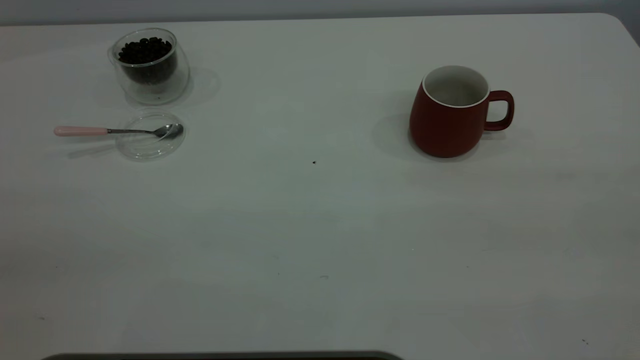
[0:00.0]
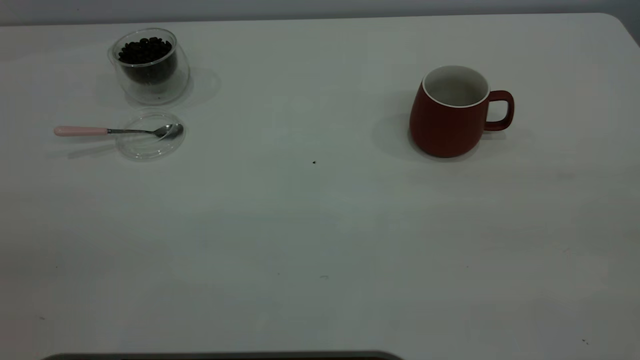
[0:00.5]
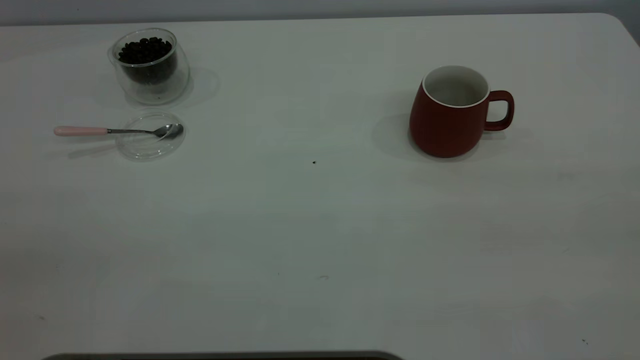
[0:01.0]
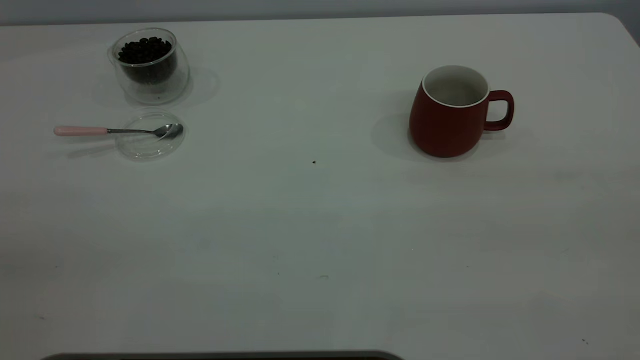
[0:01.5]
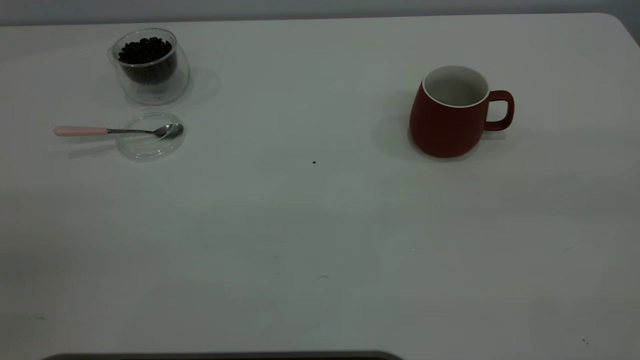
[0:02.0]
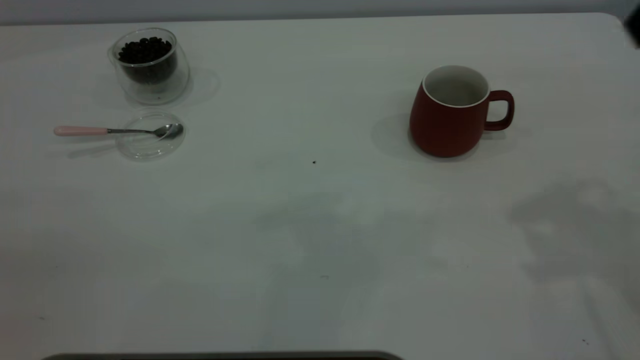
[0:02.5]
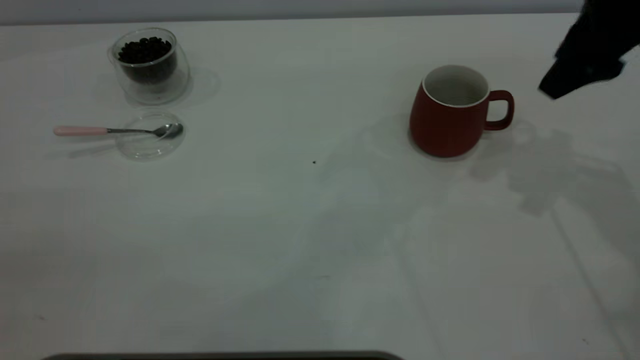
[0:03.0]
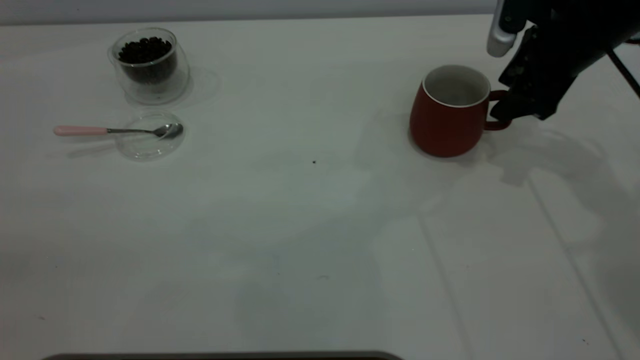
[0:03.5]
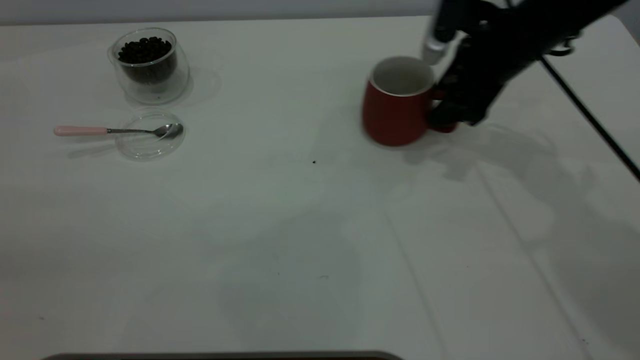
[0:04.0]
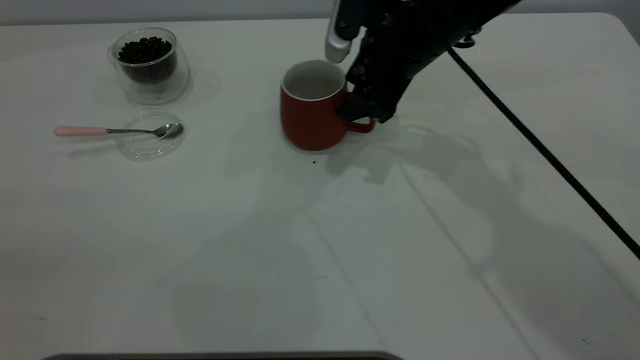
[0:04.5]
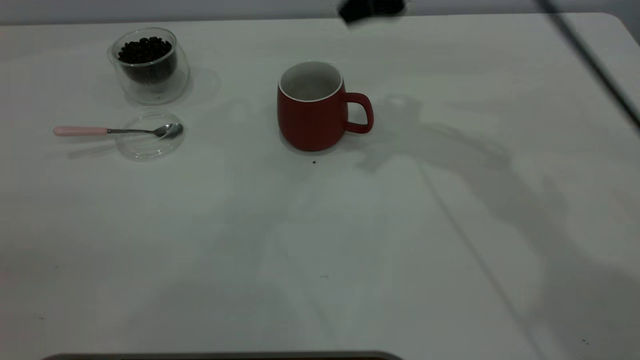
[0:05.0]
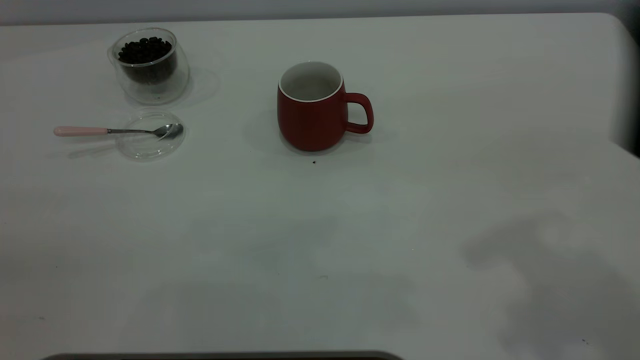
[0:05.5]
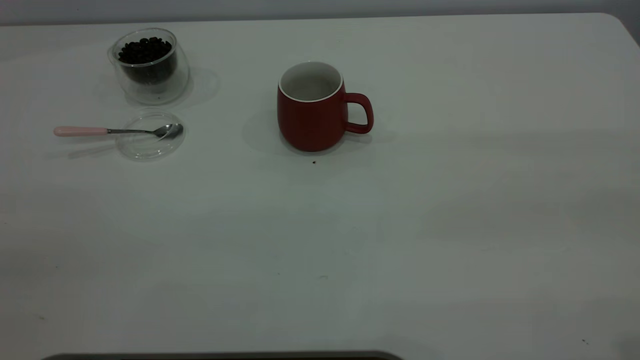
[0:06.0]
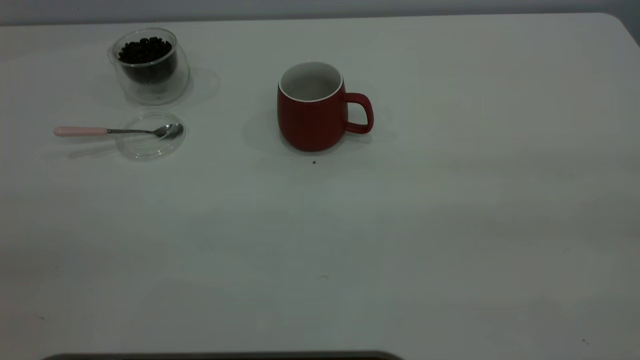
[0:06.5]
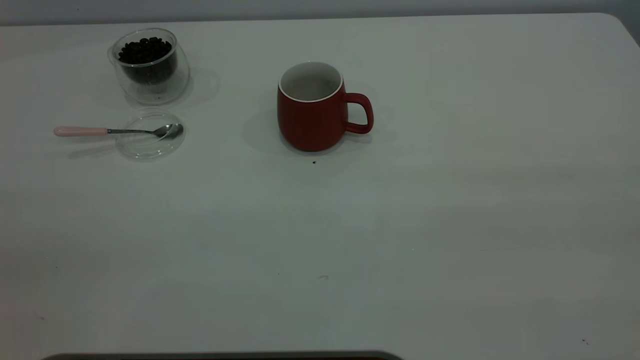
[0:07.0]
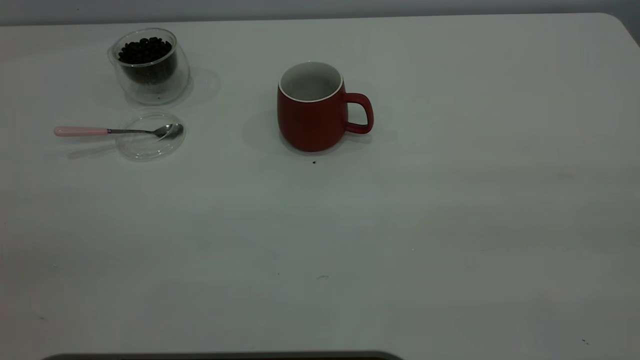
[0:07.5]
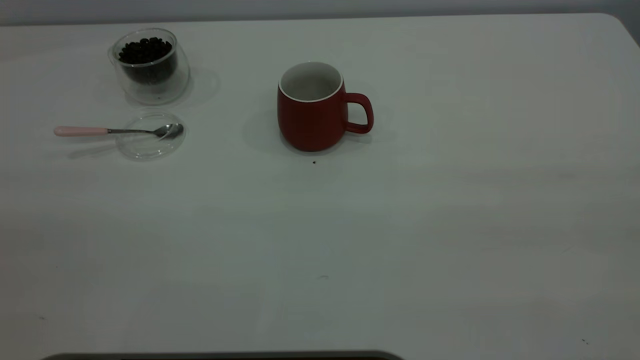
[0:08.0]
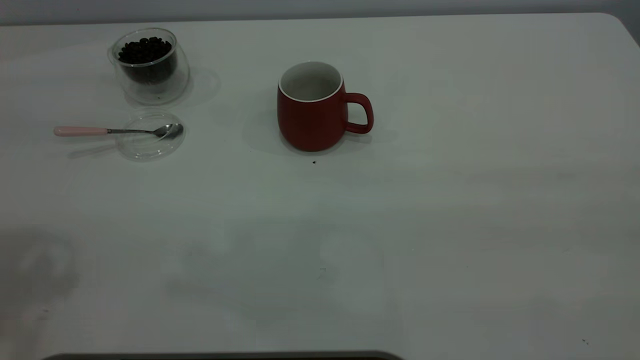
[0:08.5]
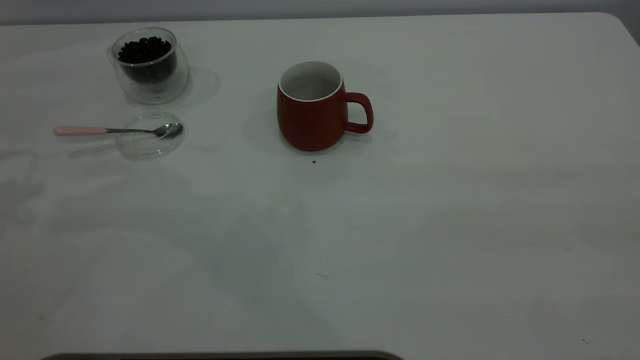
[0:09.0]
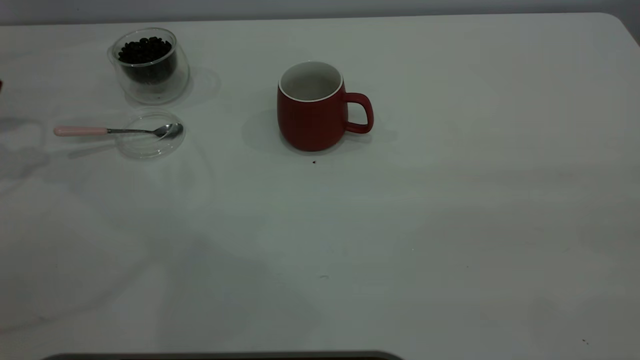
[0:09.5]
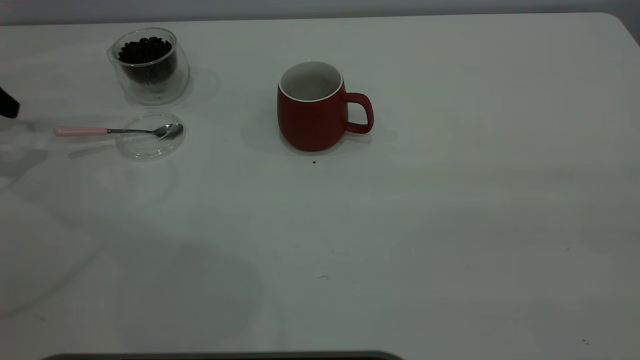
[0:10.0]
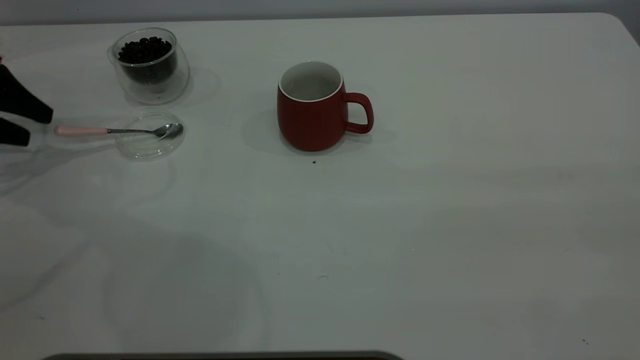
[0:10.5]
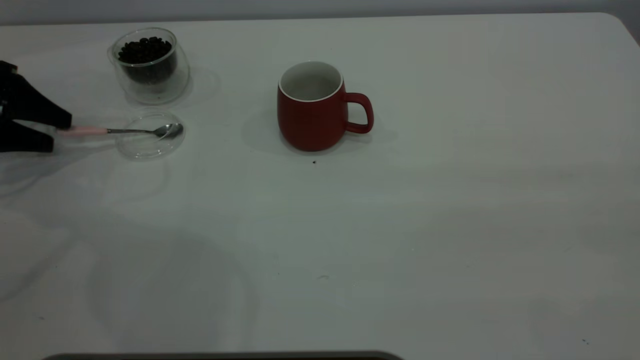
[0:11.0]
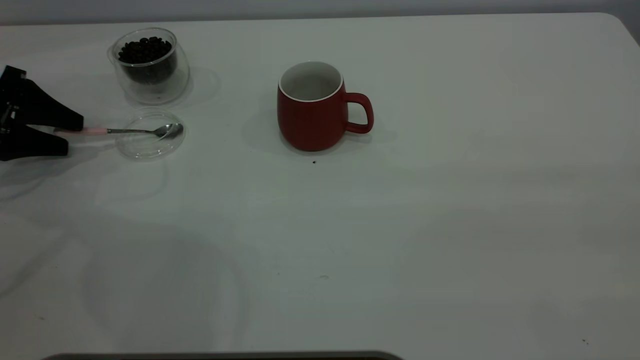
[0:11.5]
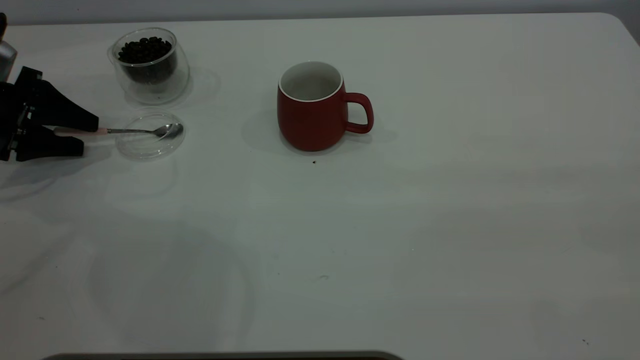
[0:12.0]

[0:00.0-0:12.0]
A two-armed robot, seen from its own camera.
Task of the whole recording: the right gripper place the red cup in the center of the table, the left gripper take the pink spoon from the cup lid and scoop out the coffee beans from the coffee cup and put them into the red cup, the left gripper put the spoon back into the cup lid.
Step, 0:00.0 to 0:05.0: Move the cup to the center of view.
0:02.0 to 0:04.0: The right gripper moves forward and downward, some 40 cm.
0:04.0 to 0:06.0: The right gripper travels backward and upward by about 40 cm.
0:08.0 to 0:10.0: The left gripper goes some 40 cm forward and downward.
0:10.0 to 0:12.0: The left gripper is displaced downward by some 5 cm.

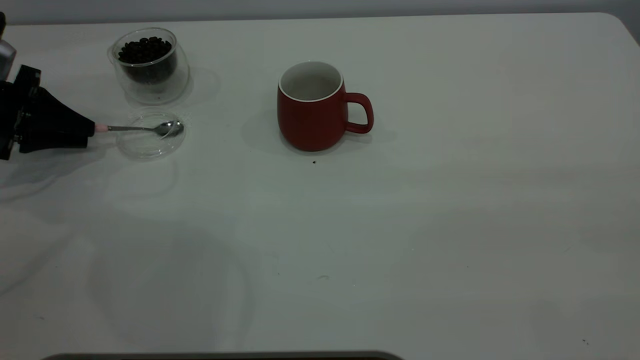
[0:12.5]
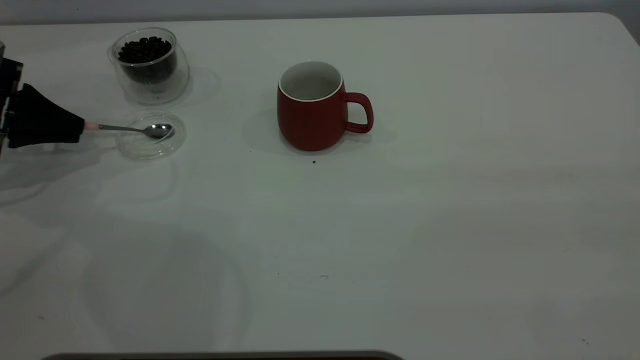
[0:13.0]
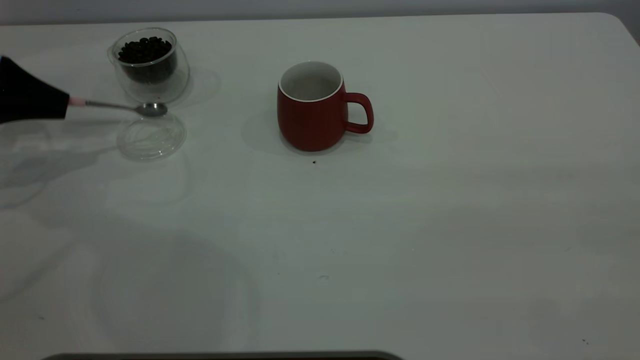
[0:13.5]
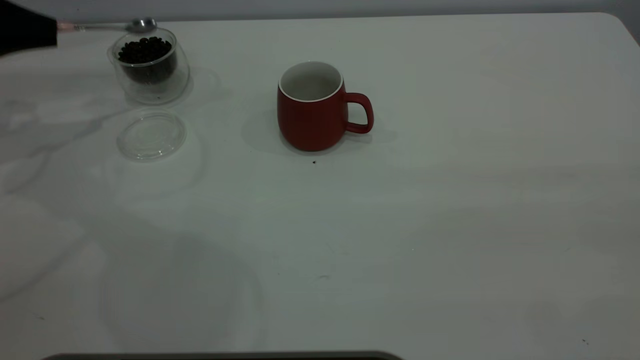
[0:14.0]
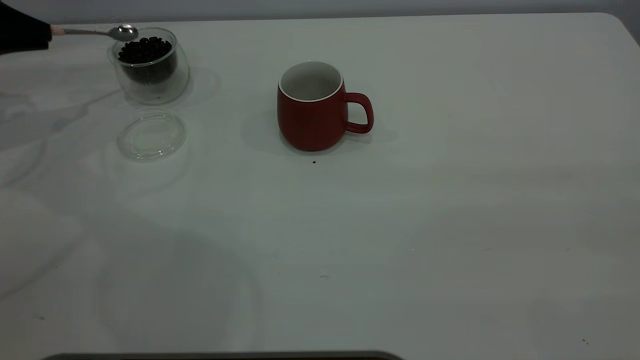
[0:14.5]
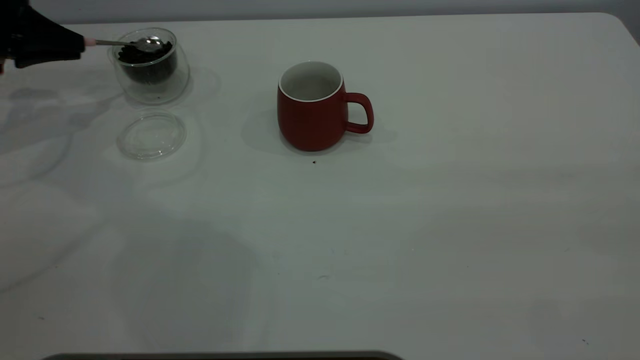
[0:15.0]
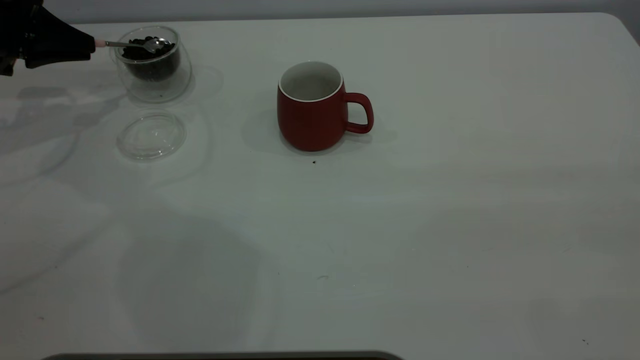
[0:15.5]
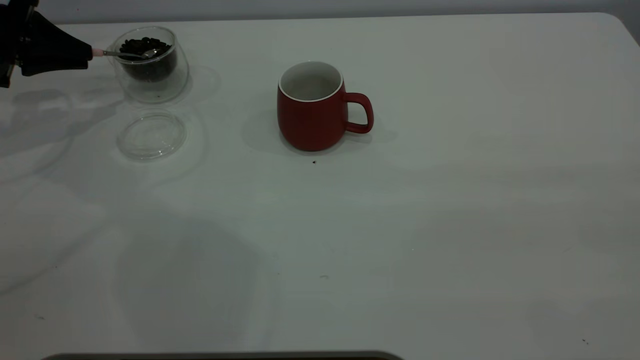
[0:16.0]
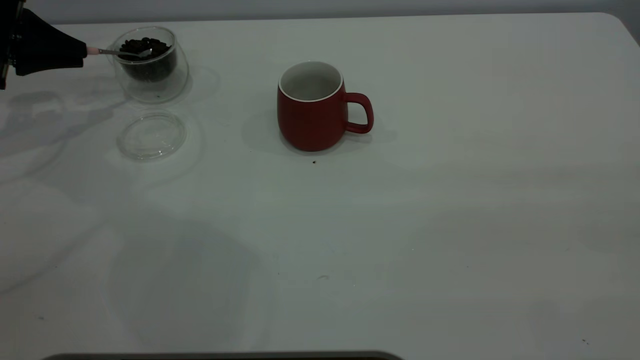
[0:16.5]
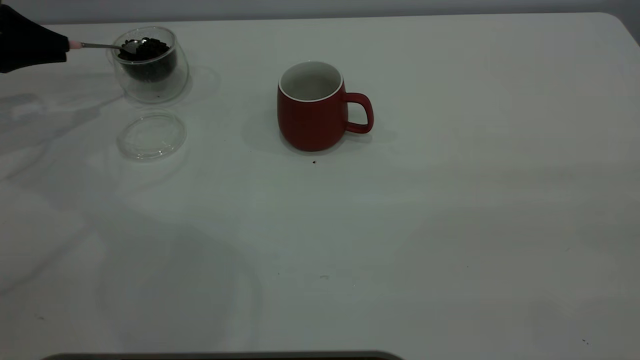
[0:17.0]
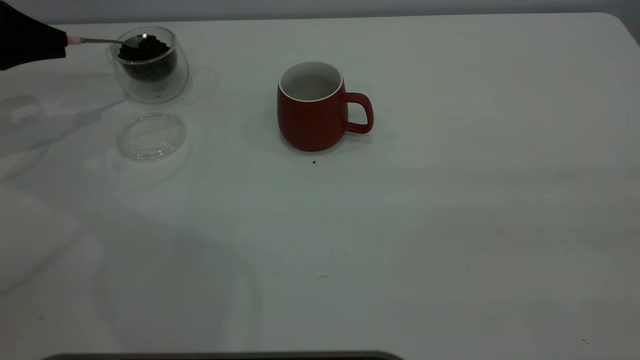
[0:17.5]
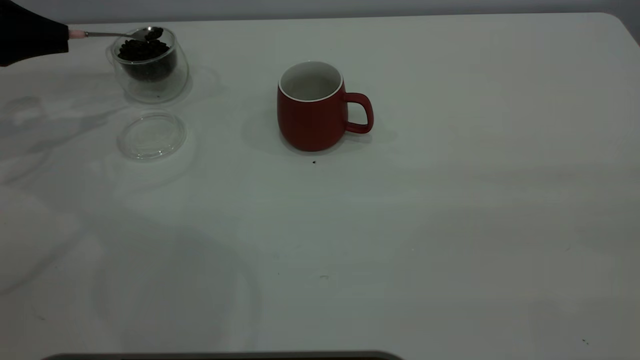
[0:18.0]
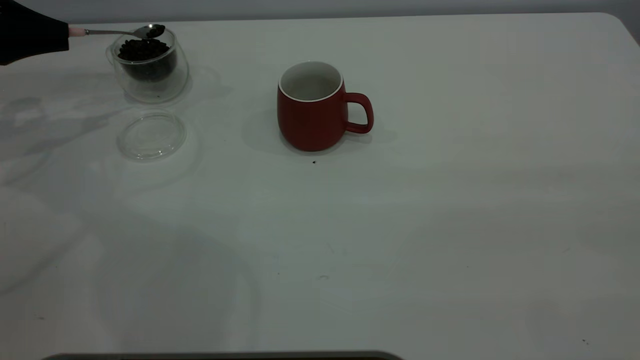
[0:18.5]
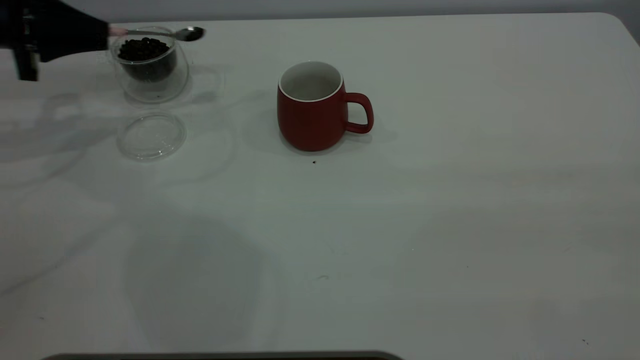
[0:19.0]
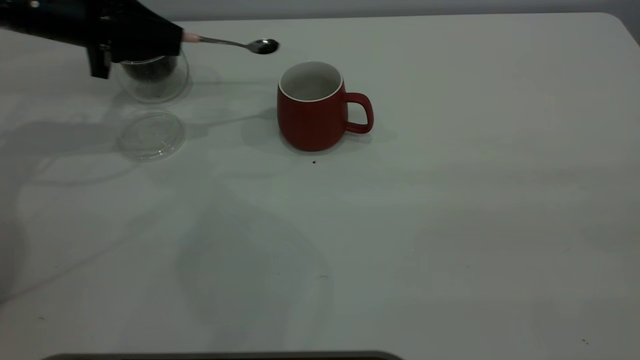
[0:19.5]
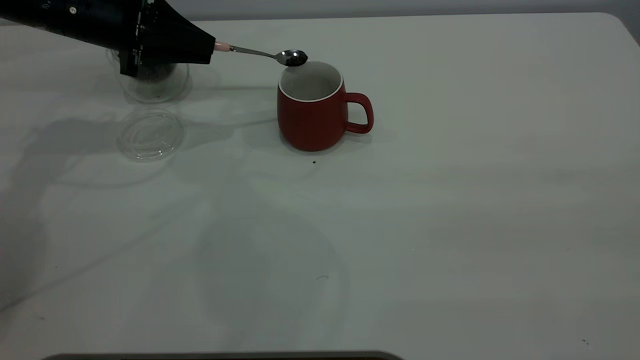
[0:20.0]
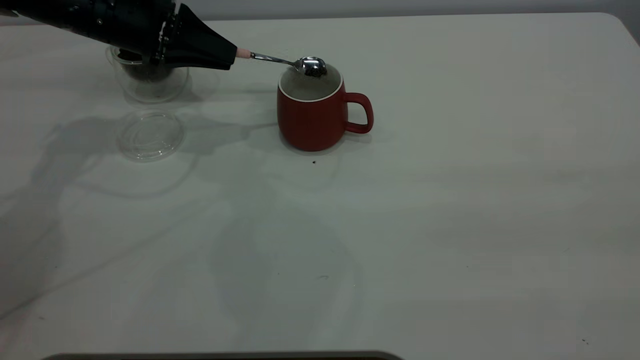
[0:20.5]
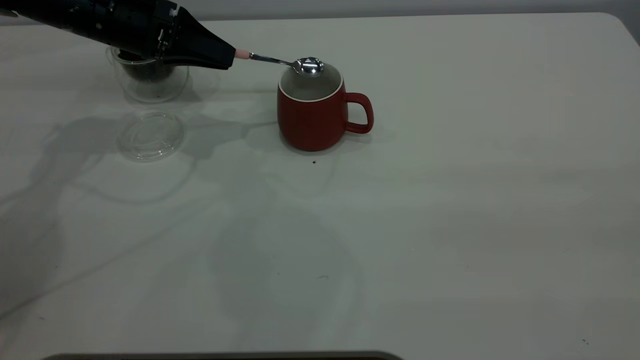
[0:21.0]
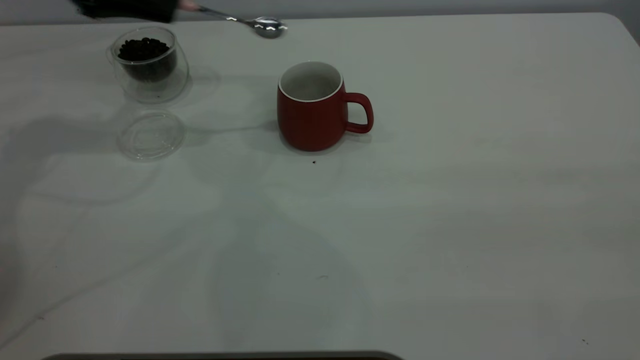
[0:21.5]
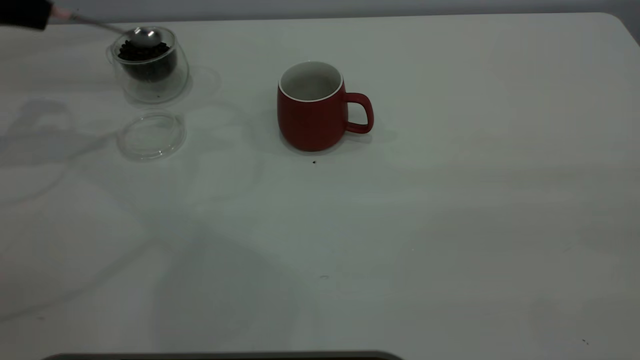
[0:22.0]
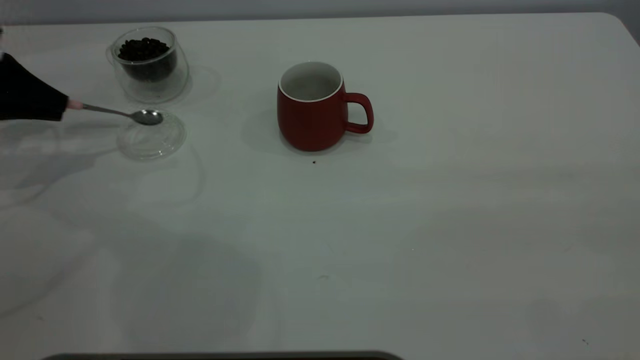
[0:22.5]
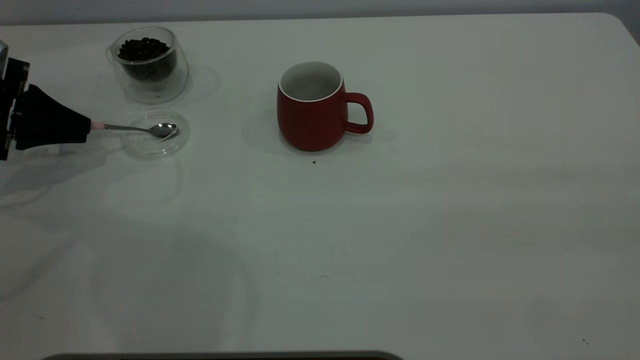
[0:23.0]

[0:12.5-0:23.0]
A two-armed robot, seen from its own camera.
Task of the whole recording: the right gripper place the red cup in the center of the table, the left gripper take the pink spoon from the cup lid and scoop out the coffee beans from the coffee cup and put them into the red cup, the left gripper put the spoon back into the cup lid.
Step, 0:14.5 to 0:21.0: Scoop a spoonful of beans into the cup.
0:12.5 to 0:14.5: The left gripper heads upward, covering roughly 10 cm.
0:14.5 to 0:16.5: There are only small adjustments of the grippers.
0:16.5 to 0:19.0: The grippers move only a little.
0:19.0 to 0:21.0: The left gripper goes some 15 cm to the right.
0:21.0 to 0:23.0: The left gripper moves to the left, some 15 cm.
